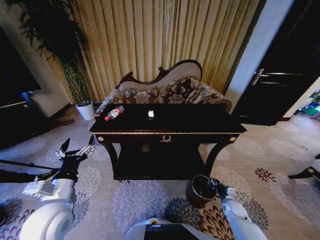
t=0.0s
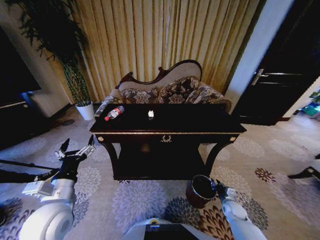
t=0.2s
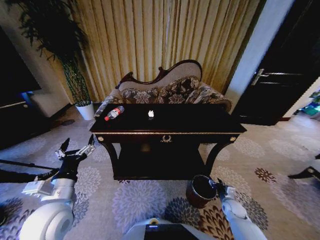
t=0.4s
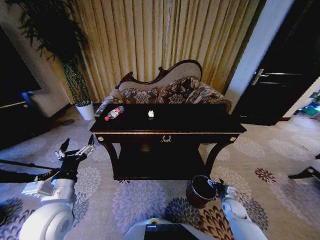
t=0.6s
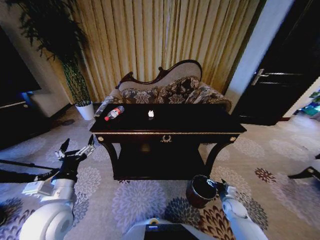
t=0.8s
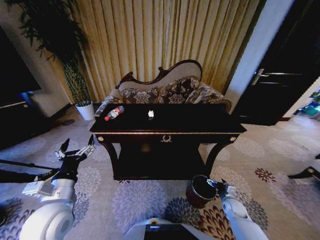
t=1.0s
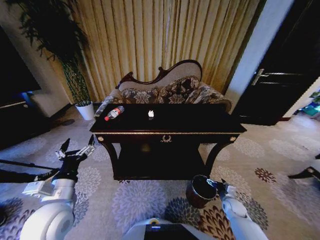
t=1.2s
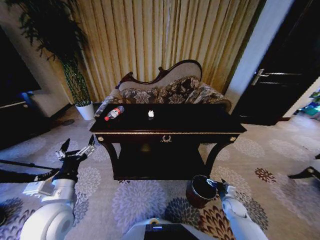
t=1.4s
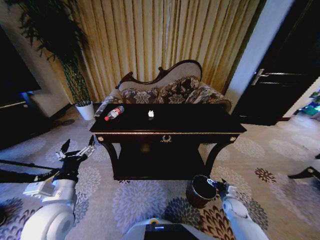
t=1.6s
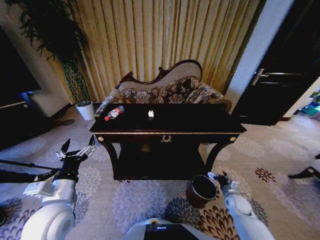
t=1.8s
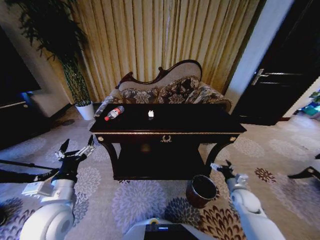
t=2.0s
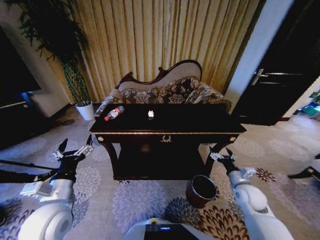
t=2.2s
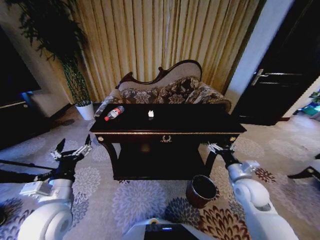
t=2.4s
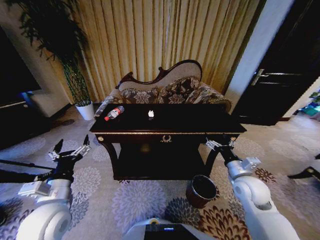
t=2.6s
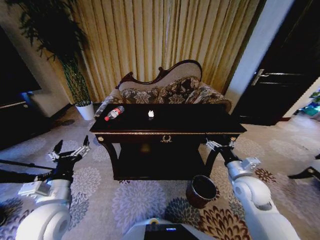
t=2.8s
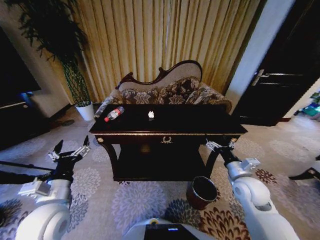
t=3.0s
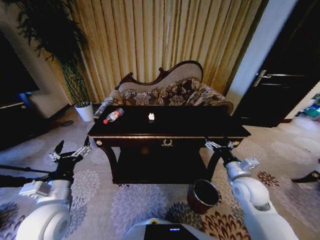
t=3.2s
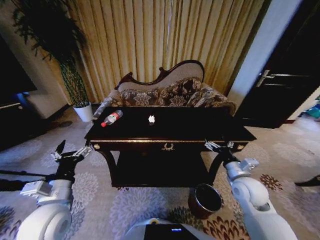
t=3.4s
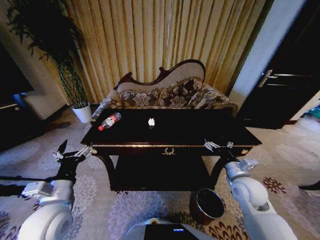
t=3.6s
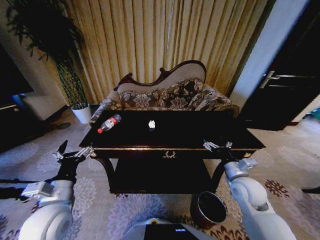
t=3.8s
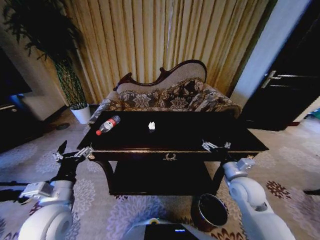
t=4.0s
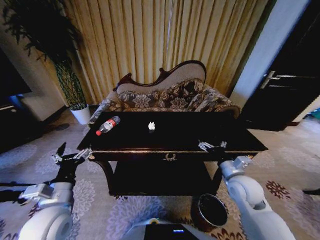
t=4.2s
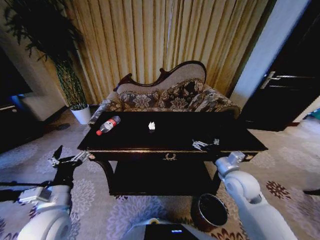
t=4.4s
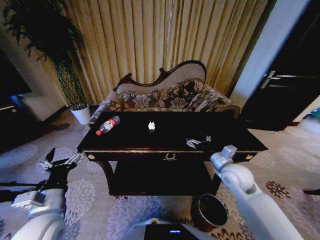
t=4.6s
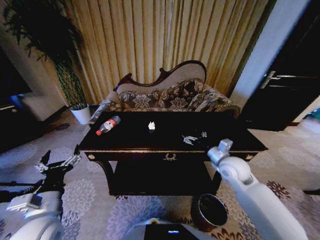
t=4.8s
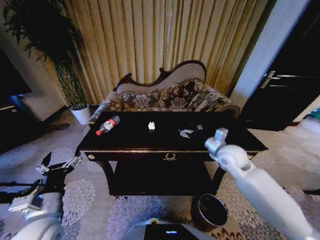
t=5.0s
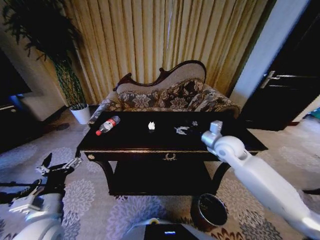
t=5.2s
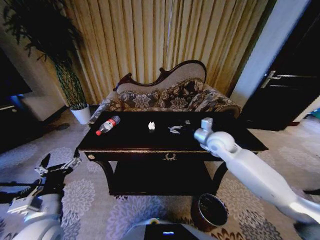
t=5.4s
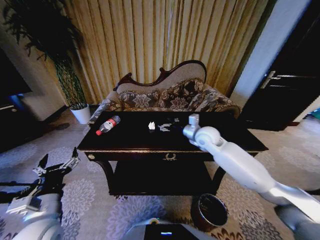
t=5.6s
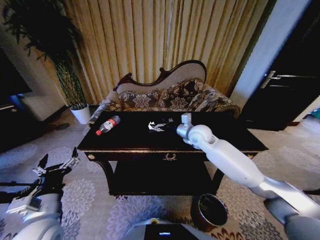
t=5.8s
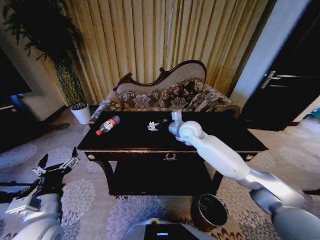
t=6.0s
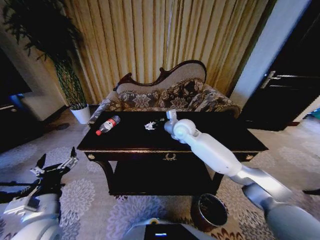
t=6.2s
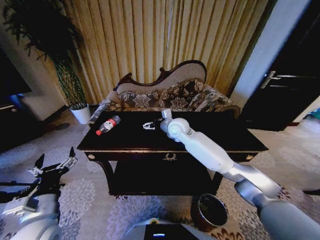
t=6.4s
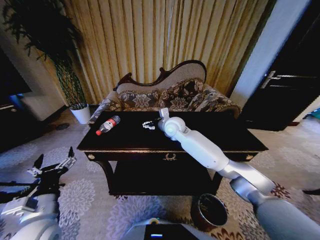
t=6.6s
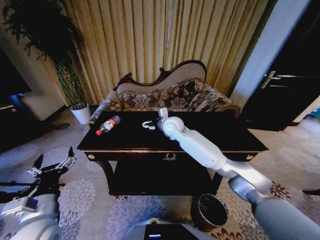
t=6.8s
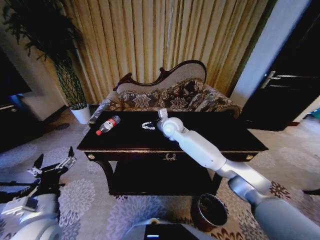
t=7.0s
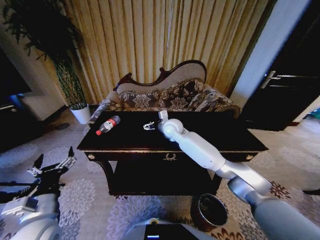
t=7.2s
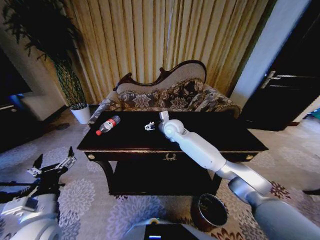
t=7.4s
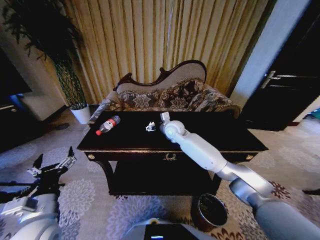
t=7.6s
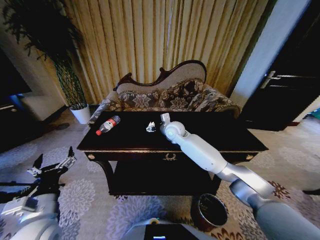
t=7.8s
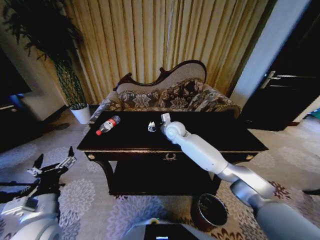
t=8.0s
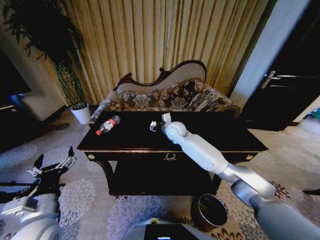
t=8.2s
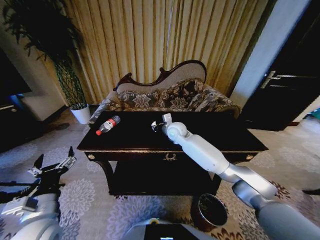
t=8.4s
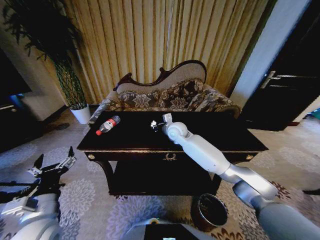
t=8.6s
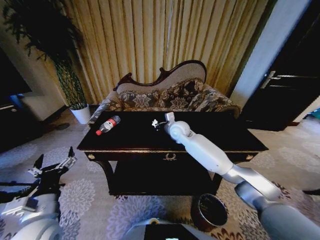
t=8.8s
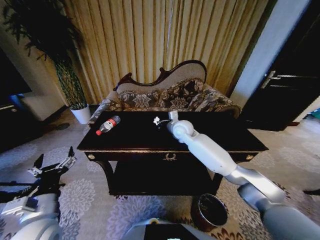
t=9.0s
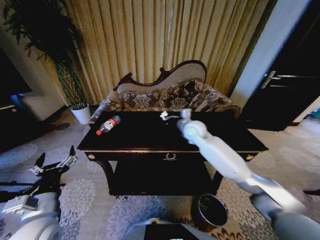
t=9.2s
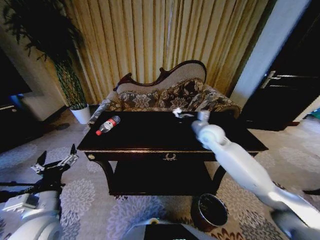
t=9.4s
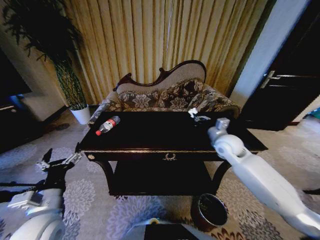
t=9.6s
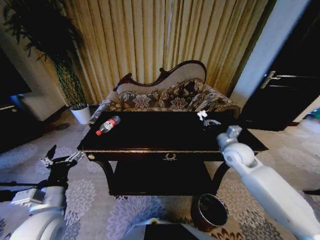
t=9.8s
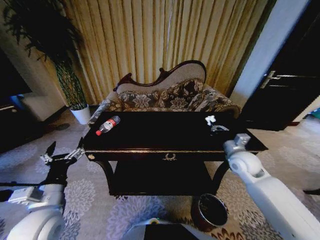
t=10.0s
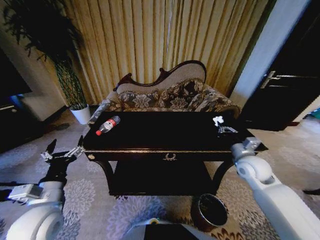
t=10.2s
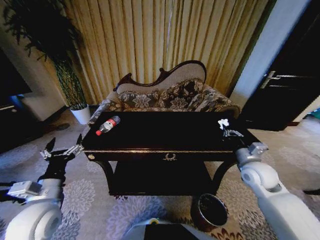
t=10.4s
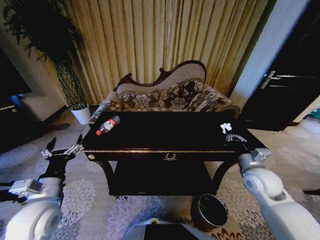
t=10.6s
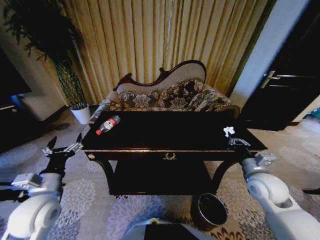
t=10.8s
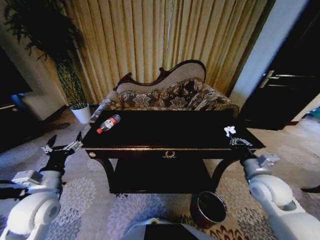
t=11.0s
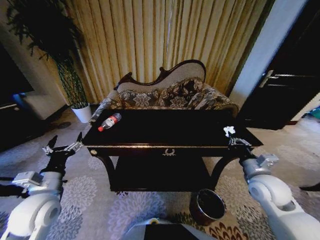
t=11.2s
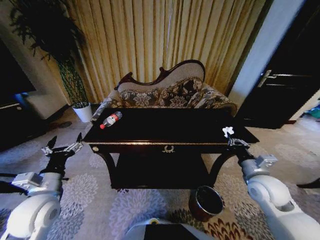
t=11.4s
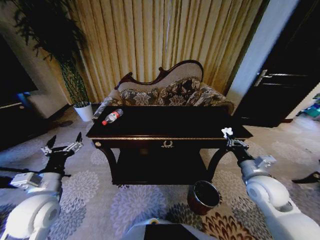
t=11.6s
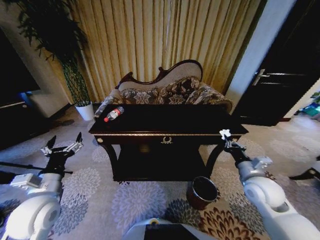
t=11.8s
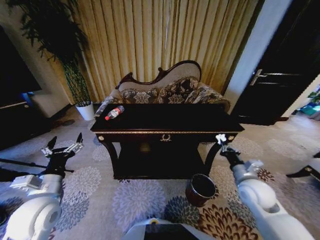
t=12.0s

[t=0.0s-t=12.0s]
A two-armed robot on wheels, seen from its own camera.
Task of the whole recording: Move to the front of the table and place the trash on the table into the trash bin.
t=1.6s to t=3.0s: The right gripper is displaced upward by approximately 25 cm.
t=4.4s to t=6.0s: The right gripper goes approximately 25 cm forward, to the left and upward.
t=6.0s to t=7.6s: The right gripper heads to the left, covering approximately 5 cm.
t=7.6s to t=9.0s: The right gripper closes its fingers.
t=9.0s to t=10.4s: The right gripper moves to the right and backward, about 30 cm.
t=10.4s to t=12.0s: The right gripper goes about 5 cm backward.

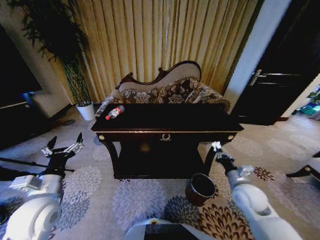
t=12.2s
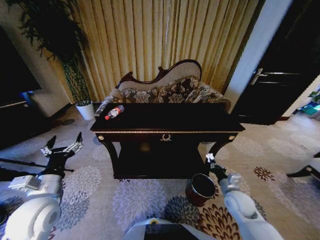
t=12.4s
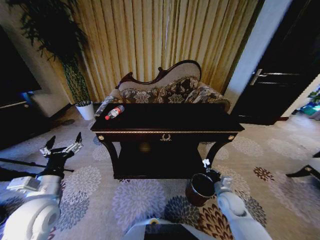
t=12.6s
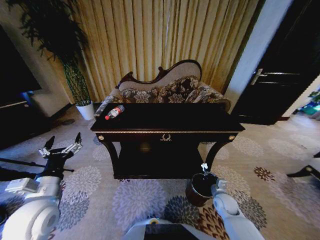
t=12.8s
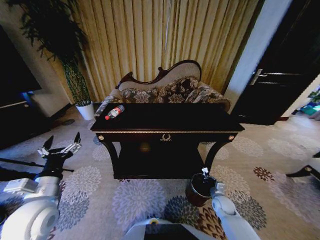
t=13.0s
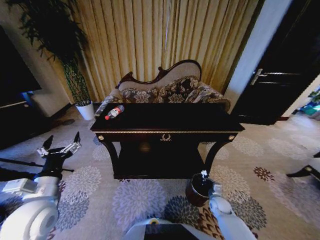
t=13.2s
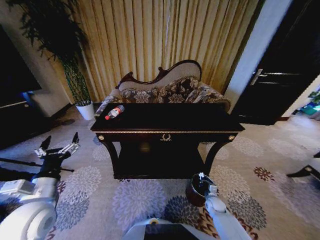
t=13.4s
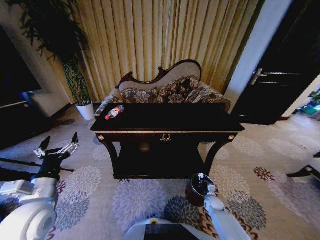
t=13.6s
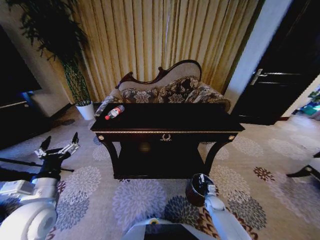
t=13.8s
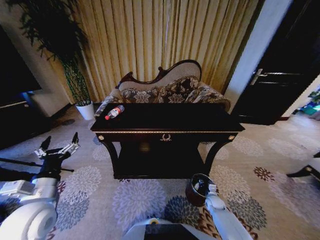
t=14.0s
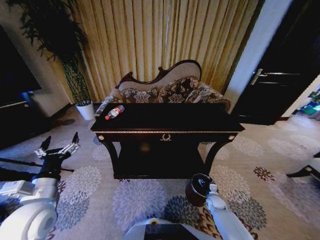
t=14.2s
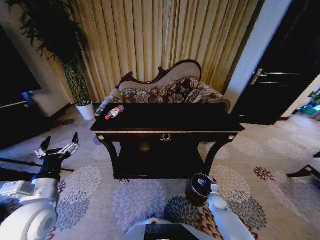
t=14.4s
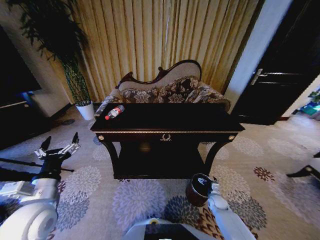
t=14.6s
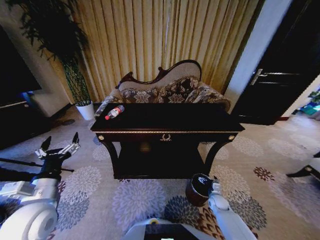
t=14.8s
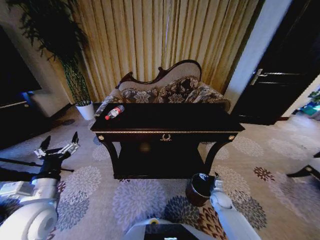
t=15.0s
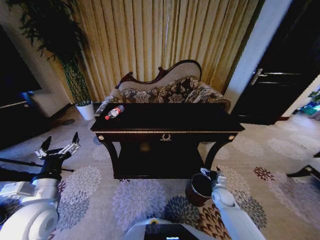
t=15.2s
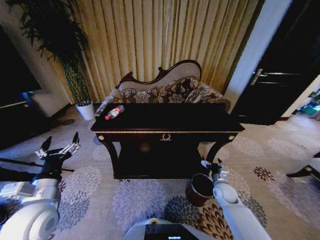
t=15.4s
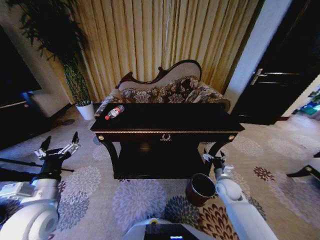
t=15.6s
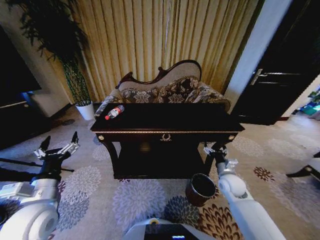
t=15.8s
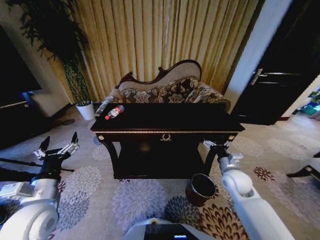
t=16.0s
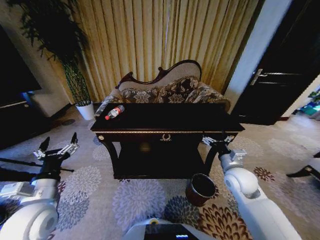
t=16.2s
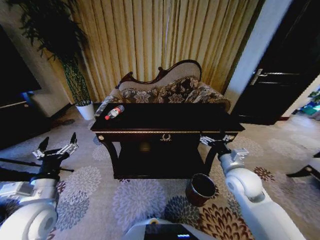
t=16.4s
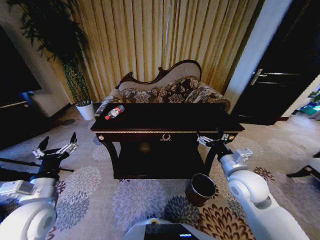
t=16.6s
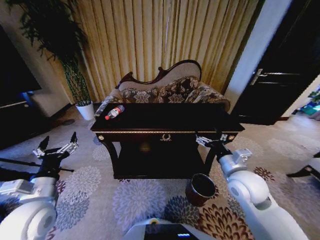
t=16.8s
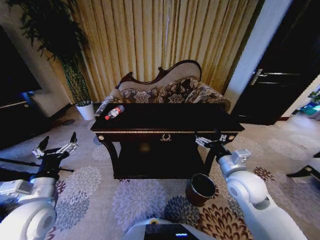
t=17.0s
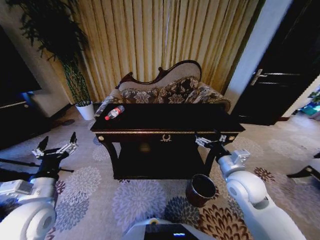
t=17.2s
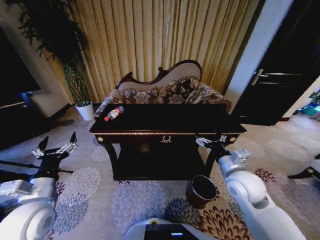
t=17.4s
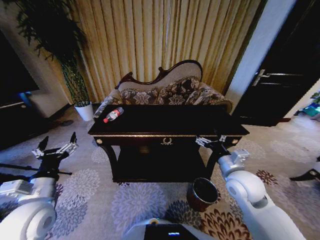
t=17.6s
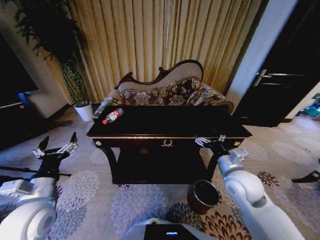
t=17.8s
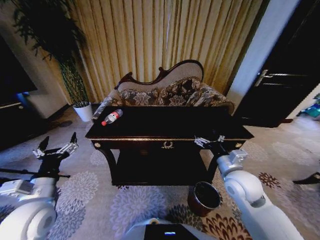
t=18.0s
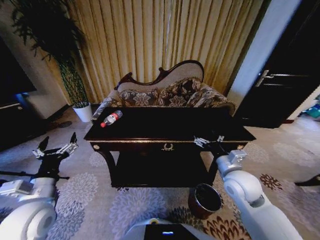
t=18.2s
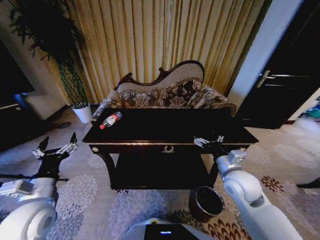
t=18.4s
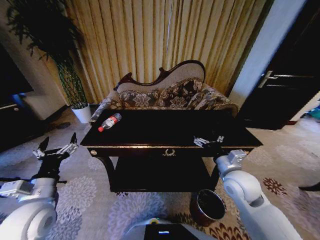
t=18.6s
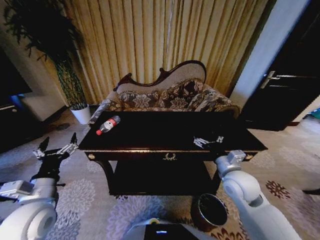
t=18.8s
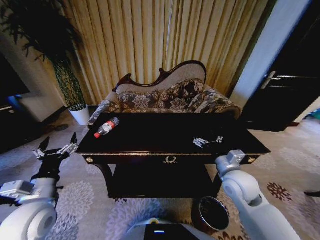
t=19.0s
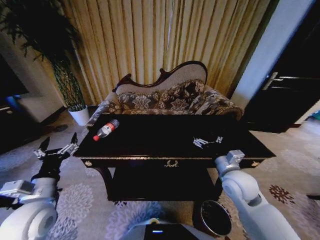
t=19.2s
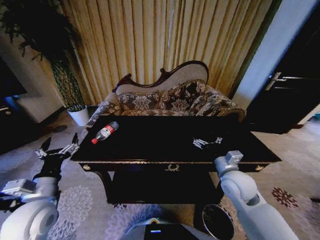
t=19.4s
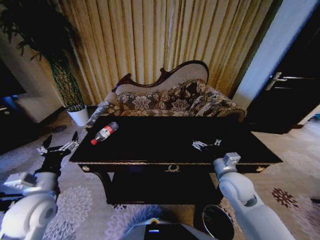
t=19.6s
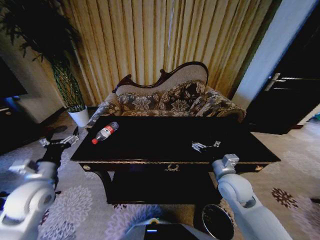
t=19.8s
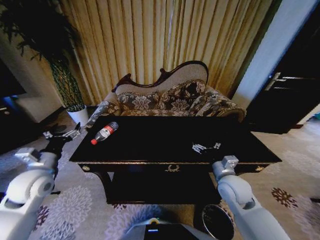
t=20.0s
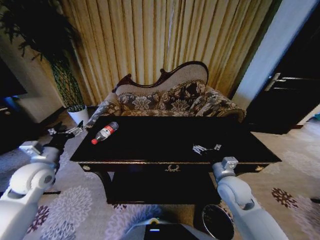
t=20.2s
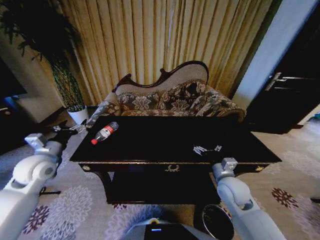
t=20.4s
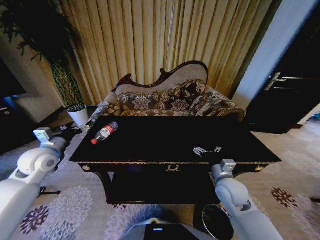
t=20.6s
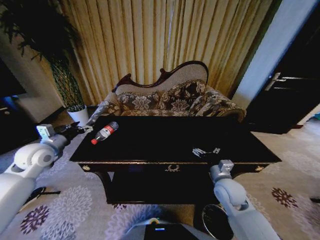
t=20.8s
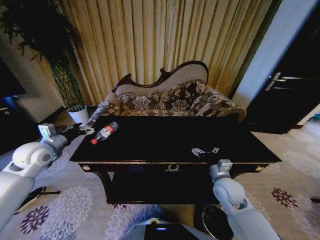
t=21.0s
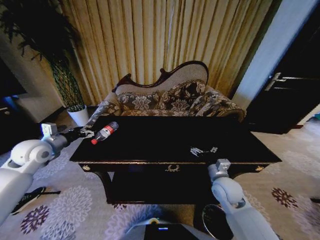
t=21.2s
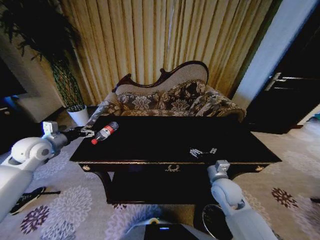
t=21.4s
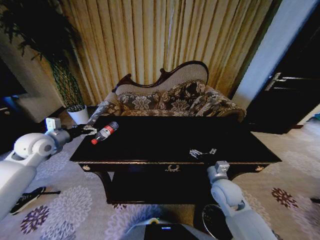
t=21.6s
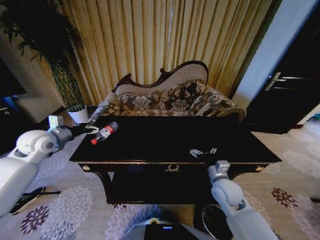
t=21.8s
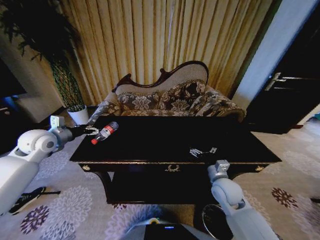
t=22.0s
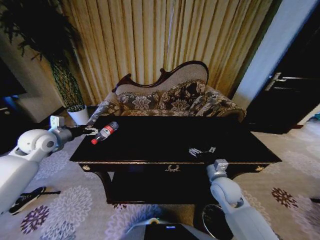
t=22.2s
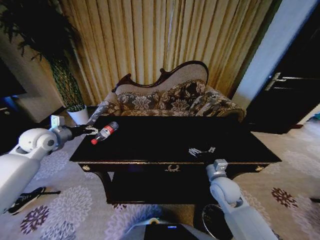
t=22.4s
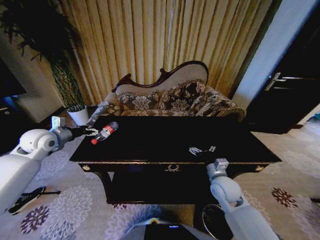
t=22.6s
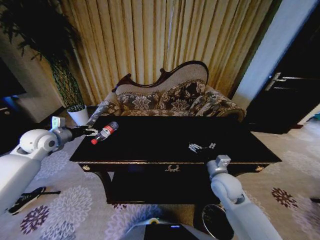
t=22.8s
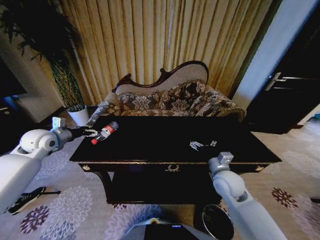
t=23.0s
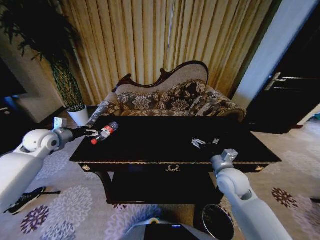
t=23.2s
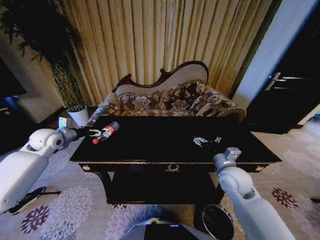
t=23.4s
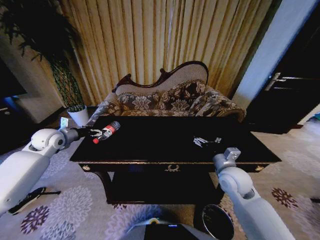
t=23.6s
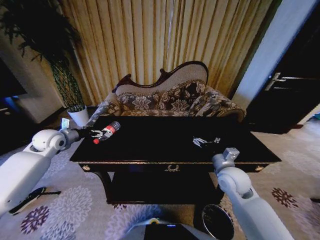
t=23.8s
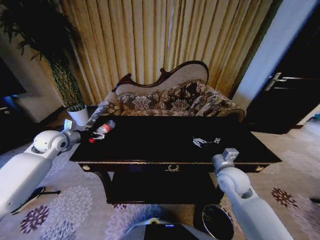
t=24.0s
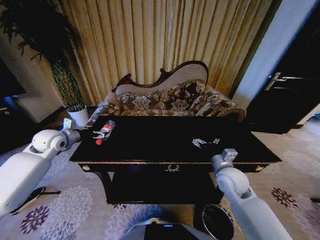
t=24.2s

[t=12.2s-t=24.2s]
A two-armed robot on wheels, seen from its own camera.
Task of the whole recording: Move to the front of the table and place the trash on the table into the trash bin.
t=12.2s to t=13.8s: The right gripper goes approximately 25 cm downward.
t=13.8s to t=15.2s: The right gripper goes some 10 cm upward, and opens up.
t=15.2s to t=16.6s: The right gripper moves upward, roughly 30 cm.
t=18.2s to t=19.8s: The left gripper moves forward, approximately 5 cm.
t=19.8s to t=21.2s: The left gripper heads forward and to the left, covering roughly 15 cm.
t=21.2s to t=22.6s: The grippers make only small movements.
t=22.6s to t=24.2s: The right gripper moves roughly 5 cm.
